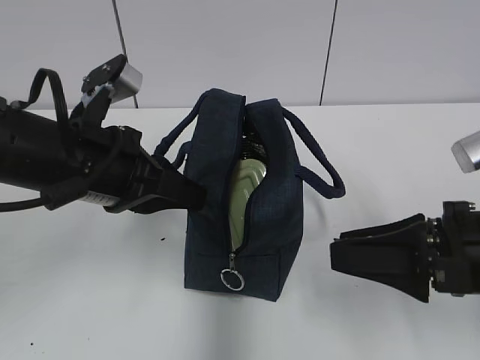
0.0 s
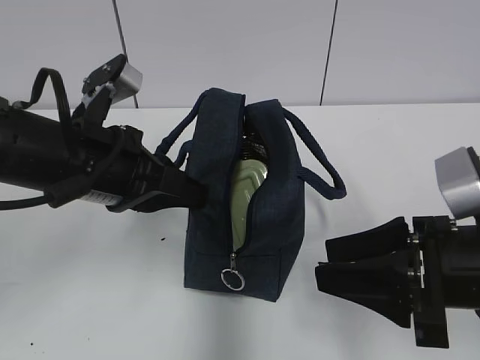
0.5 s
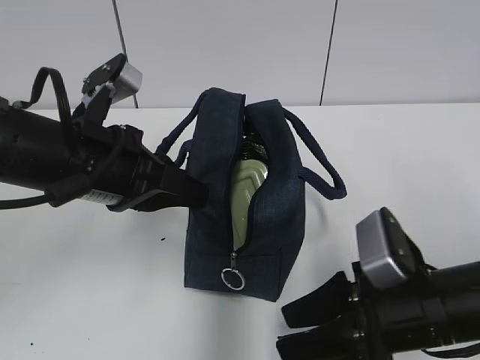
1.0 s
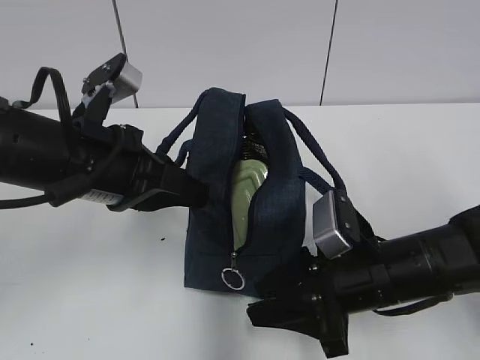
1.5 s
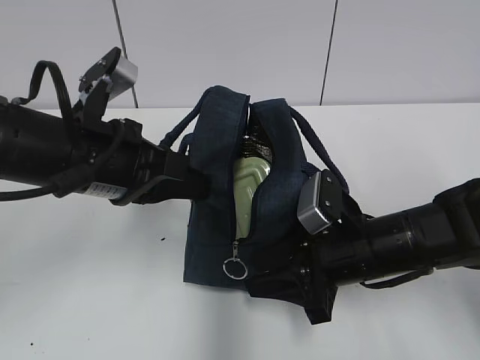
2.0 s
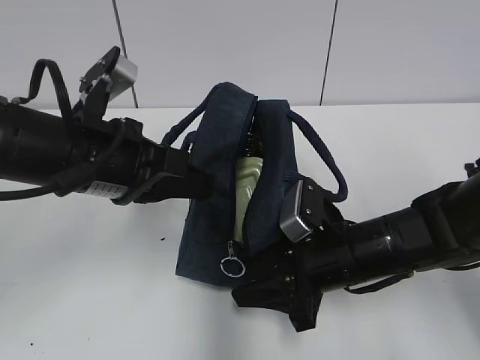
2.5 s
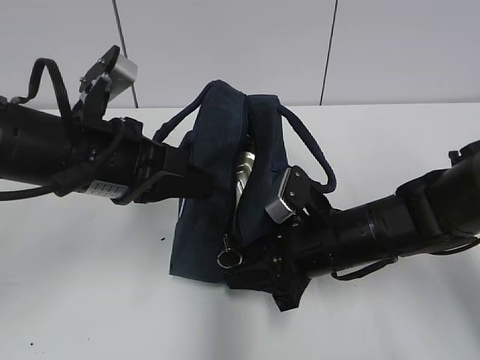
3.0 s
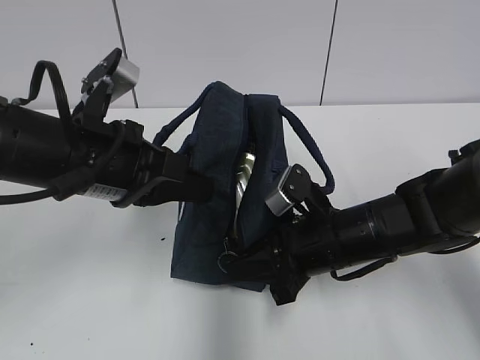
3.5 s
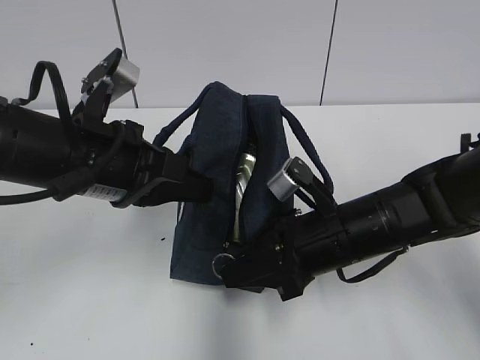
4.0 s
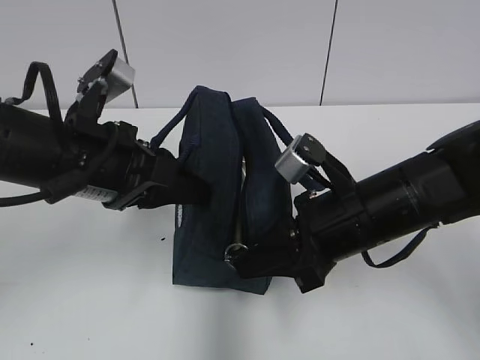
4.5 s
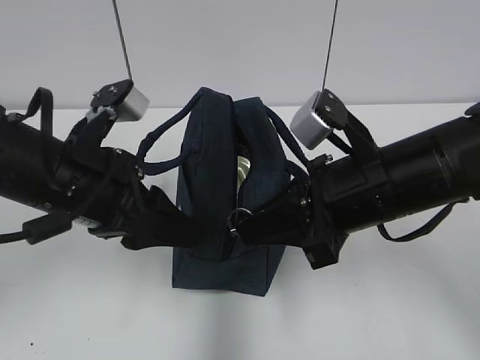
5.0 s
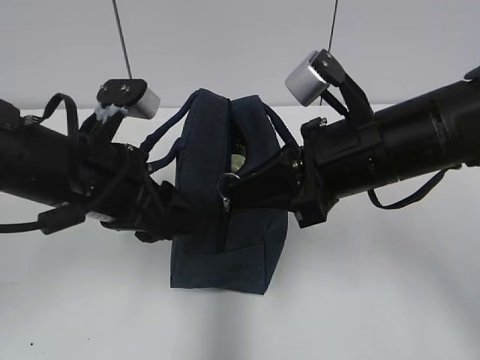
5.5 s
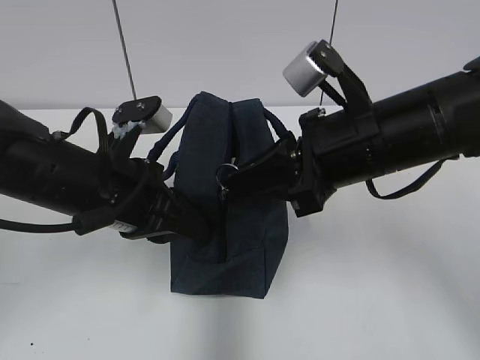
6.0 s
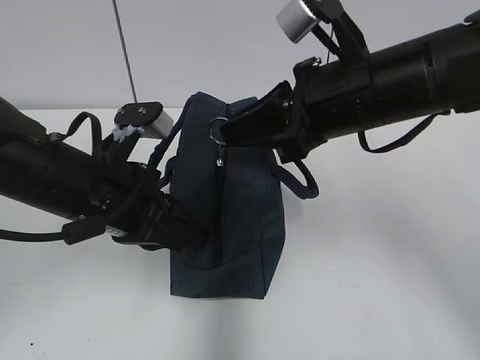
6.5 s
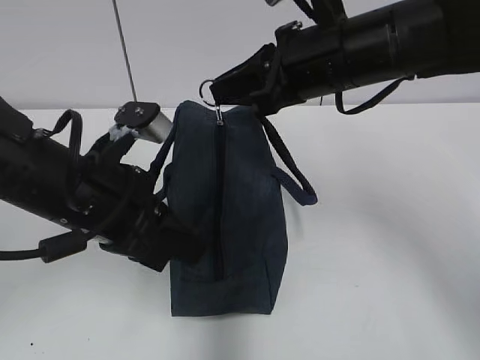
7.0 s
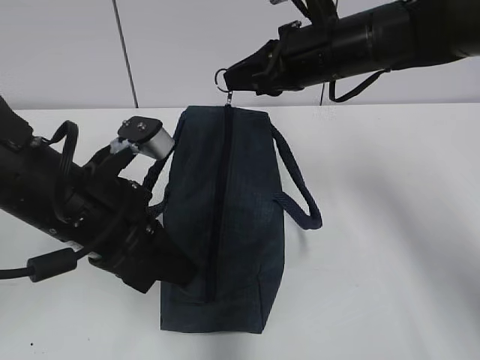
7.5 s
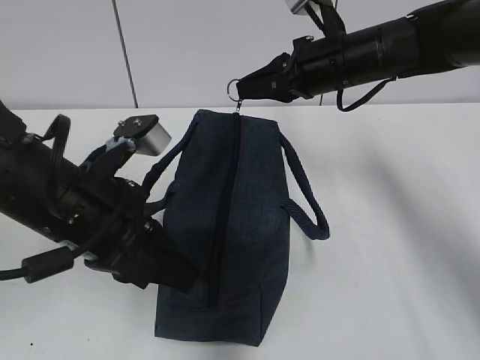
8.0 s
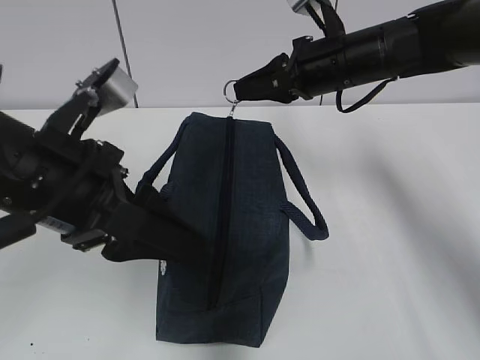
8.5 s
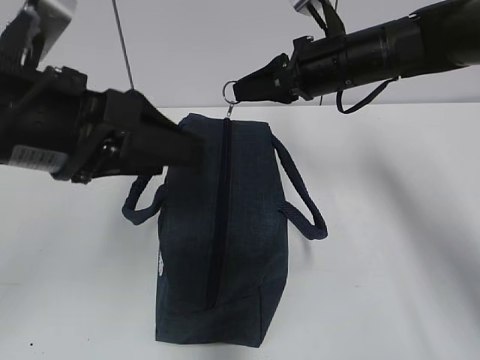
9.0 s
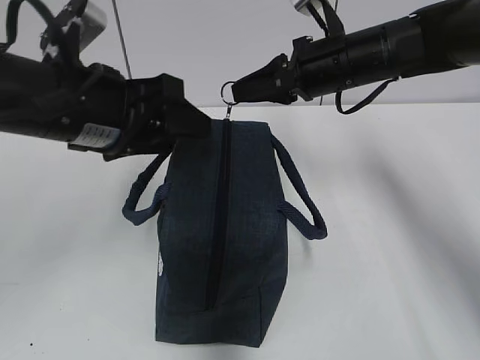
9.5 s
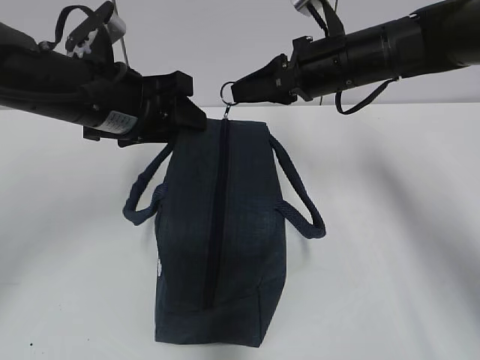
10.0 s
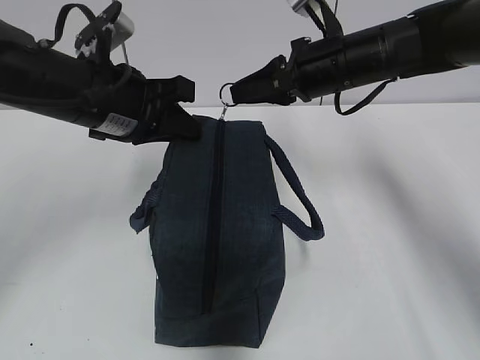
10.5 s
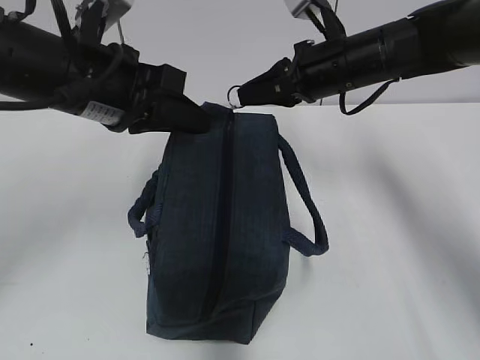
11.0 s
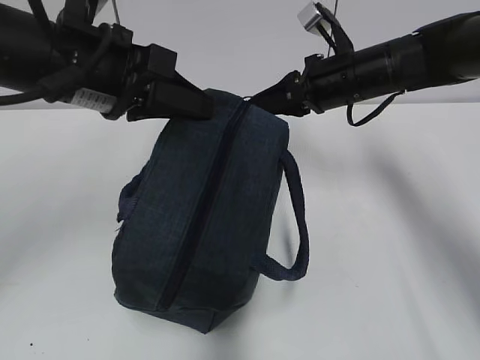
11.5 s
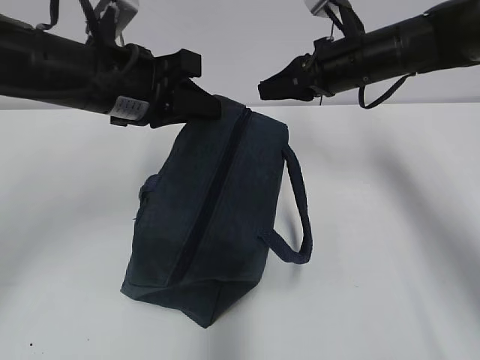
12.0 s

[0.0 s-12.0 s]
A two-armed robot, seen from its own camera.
Step, 0.0 to 8.0 s: Grab the lunch bag with your left hand.
Step, 8.5 to 11.5 s: Pull the zipper with your right hand.
0.0 to 2.0 s: The right gripper heads downward, forward and to the left, covering some 15 cm.
2.0 to 4.0 s: The right gripper closes up.
4.0 to 6.0 s: The left gripper opens, then closes once more; the right gripper goes some 10 cm upward.
6.0 to 8.0 s: The right gripper shifts approximately 15 cm forward.
8.0 to 10.0 s: The left gripper moves forward, roughly 10 cm, and opens up.
10.0 to 12.0 s: The left gripper closes up; the right gripper opens its fingers.

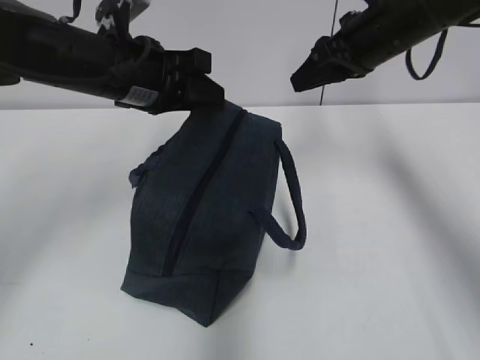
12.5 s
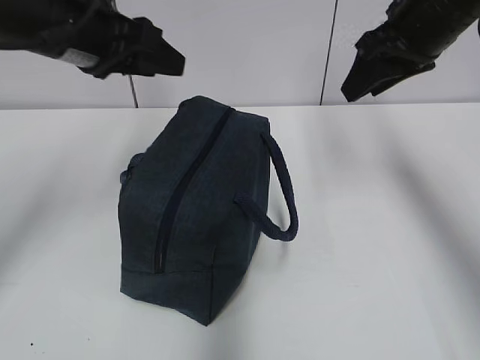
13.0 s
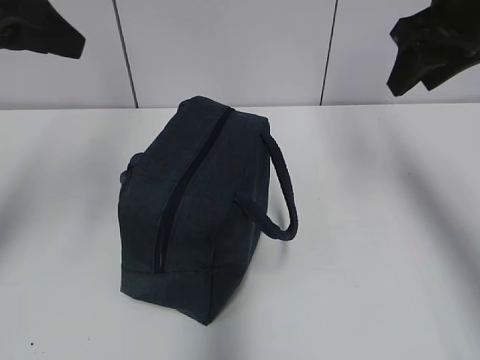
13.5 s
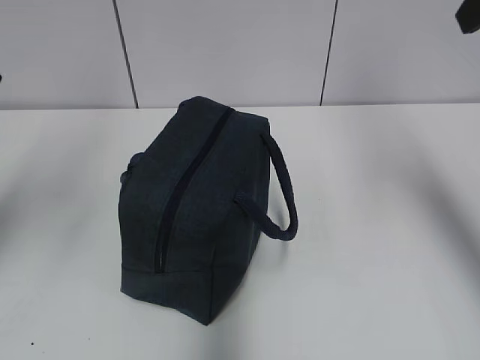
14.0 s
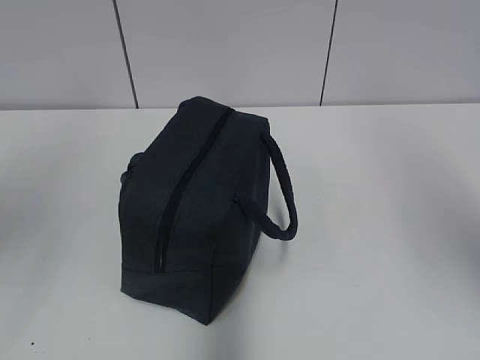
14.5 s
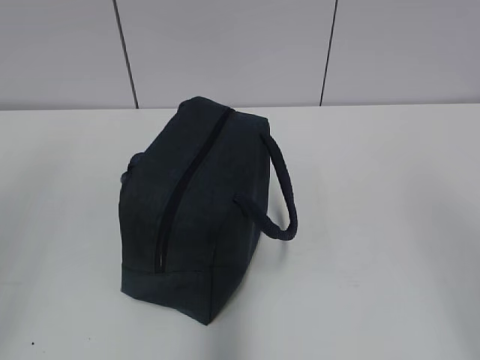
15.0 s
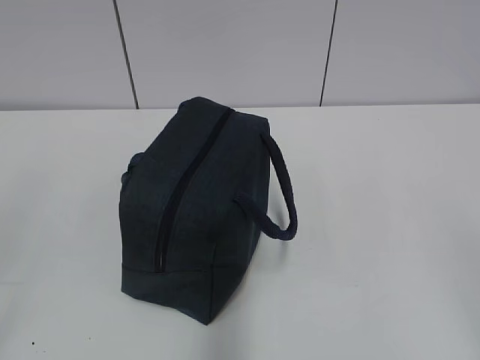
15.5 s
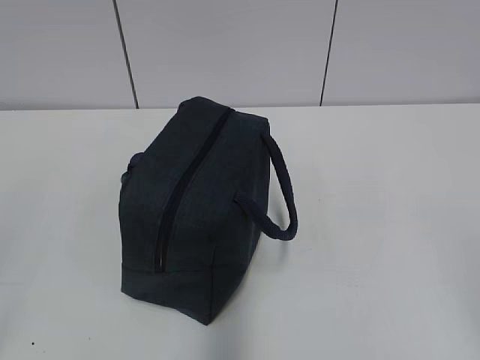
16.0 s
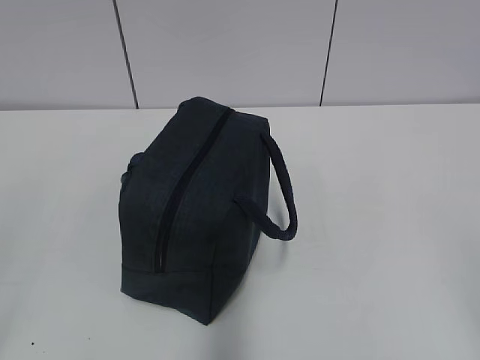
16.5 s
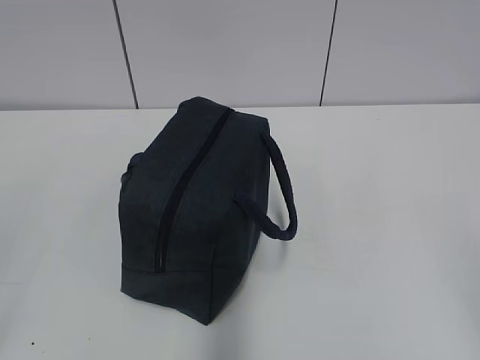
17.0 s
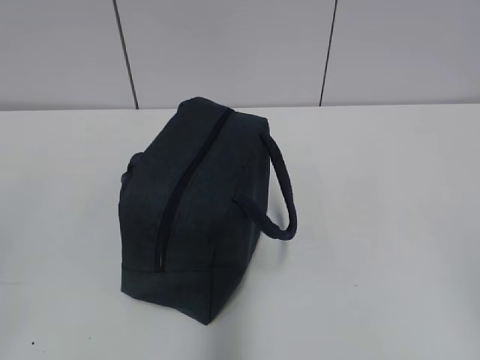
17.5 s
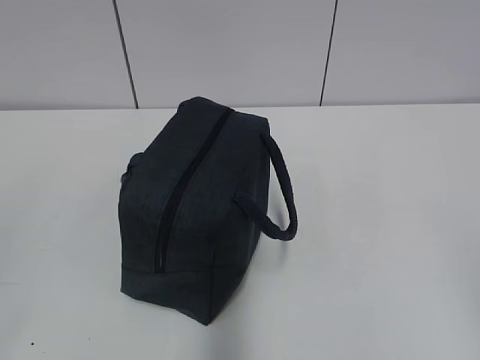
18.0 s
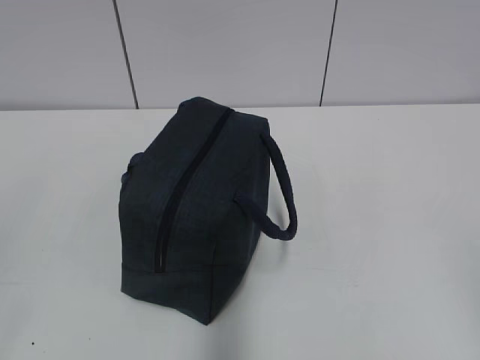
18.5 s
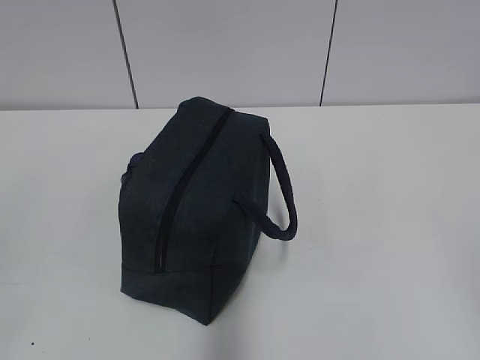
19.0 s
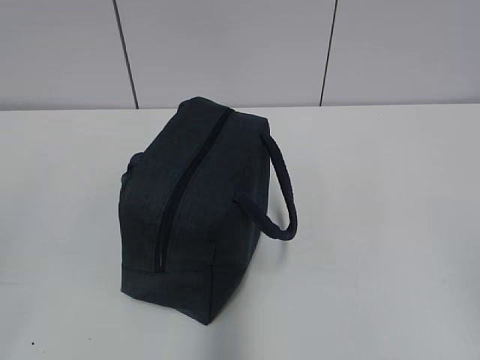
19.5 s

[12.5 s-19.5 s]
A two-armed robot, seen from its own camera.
12.5 to 14.5 s: The left gripper moves backward, upward and to the left, some 30 cm, while the right gripper travels backward and upward by approximately 30 cm.
14.5 to 16.0 s: The left gripper goes roughly 20 cm backward and downward. The right gripper is displaced downward and backward by approximately 20 cm.
17.5 to 19.5 s: Neither gripper changes place.

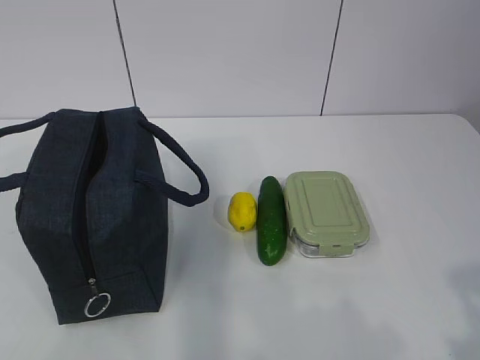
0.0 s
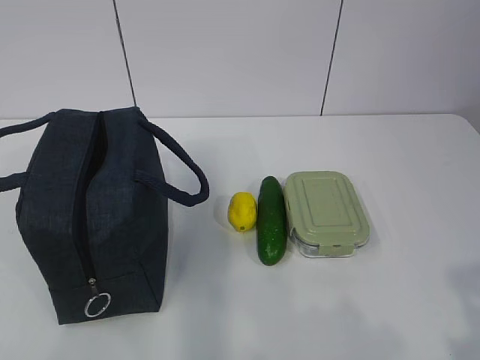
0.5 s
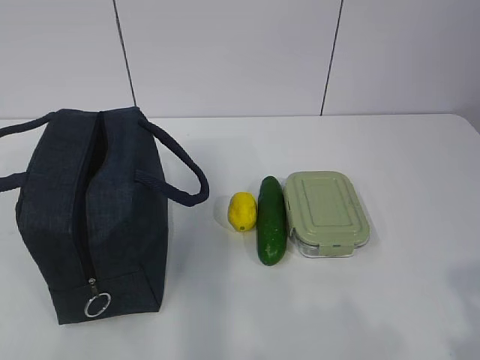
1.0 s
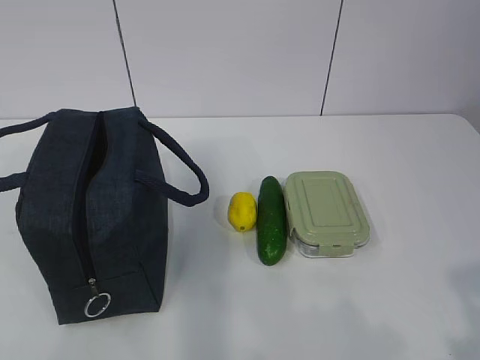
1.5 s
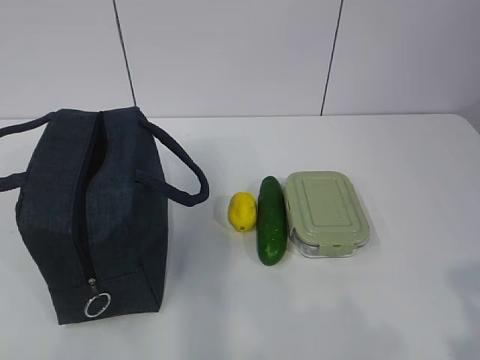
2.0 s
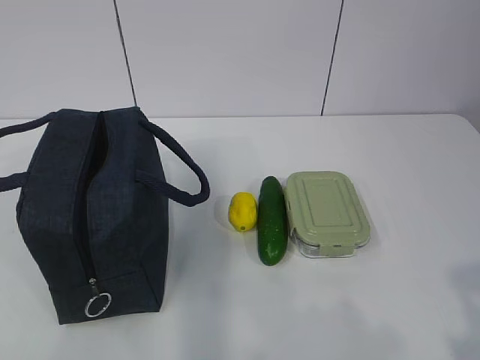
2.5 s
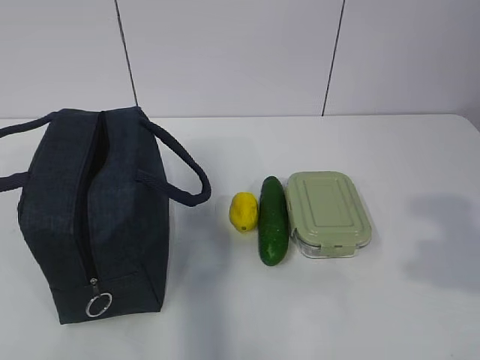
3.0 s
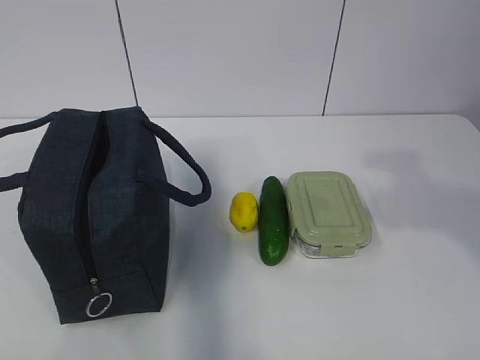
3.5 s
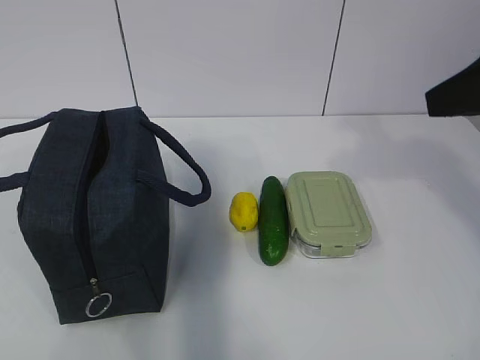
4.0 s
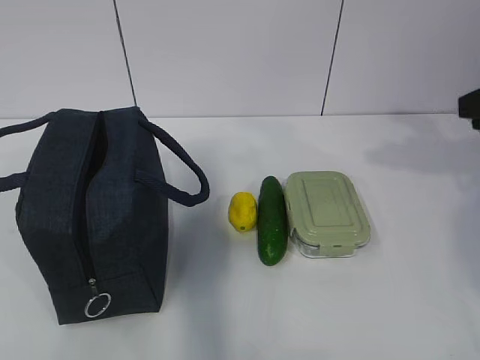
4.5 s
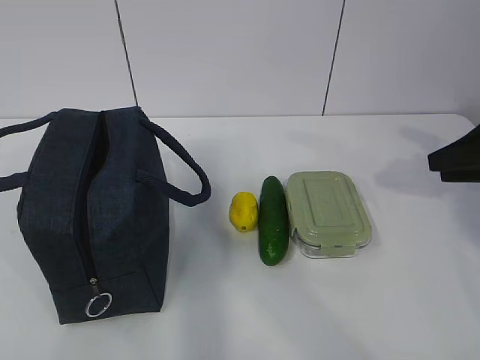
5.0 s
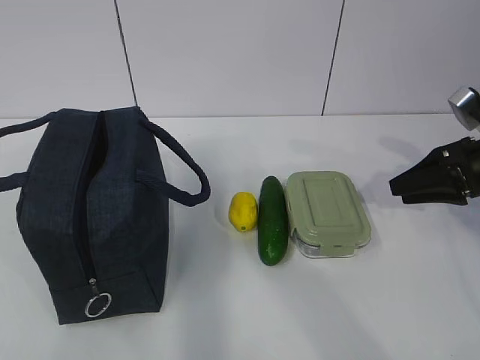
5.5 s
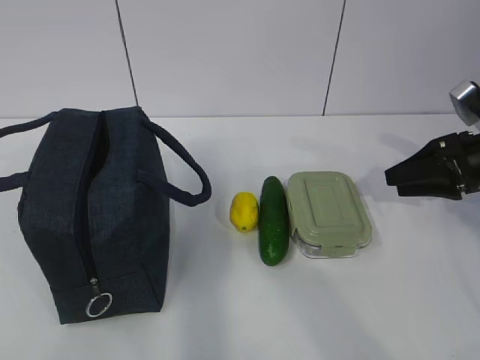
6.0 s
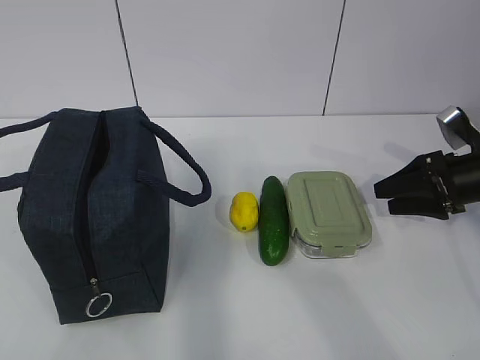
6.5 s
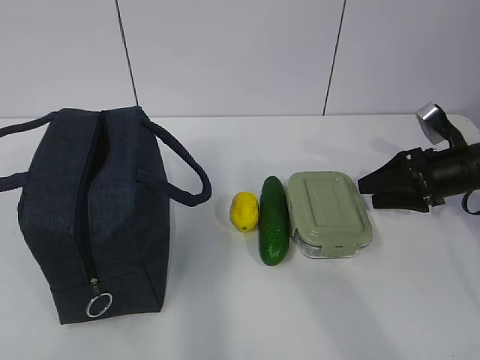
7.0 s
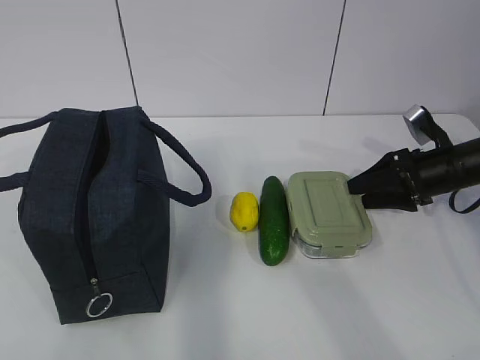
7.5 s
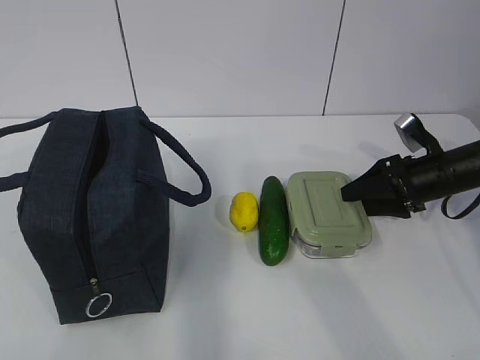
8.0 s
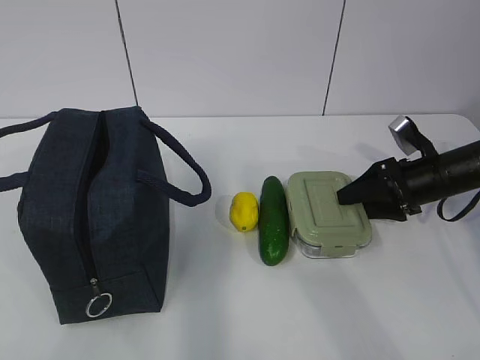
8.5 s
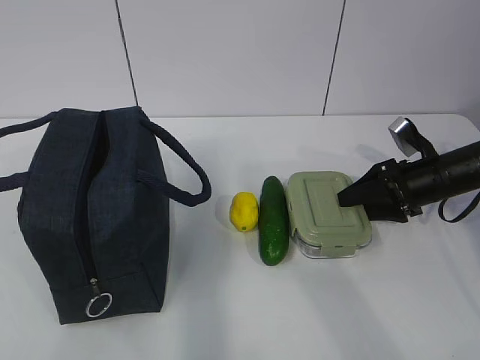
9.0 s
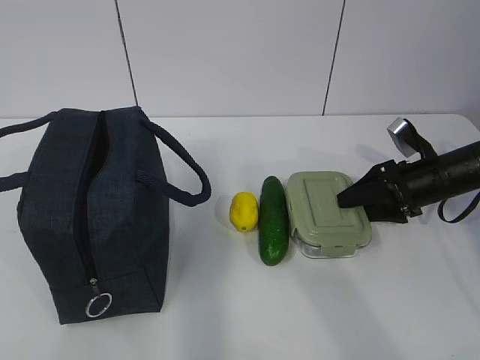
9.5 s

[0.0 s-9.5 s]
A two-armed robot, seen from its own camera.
2.0 to 4.0 s: The right gripper is displaced forward by about 25 cm.
4.0 to 5.5 s: The right gripper is displaced downward, forward and to the right by some 25 cm.
5.5 to 7.5 s: The right gripper shifts about 5 cm downward.
7.5 to 9.5 s: The grippers stay close to where they were, moving slightly.
